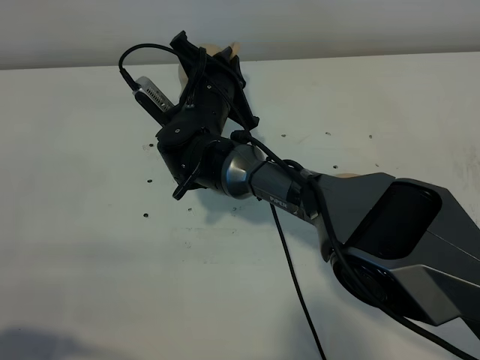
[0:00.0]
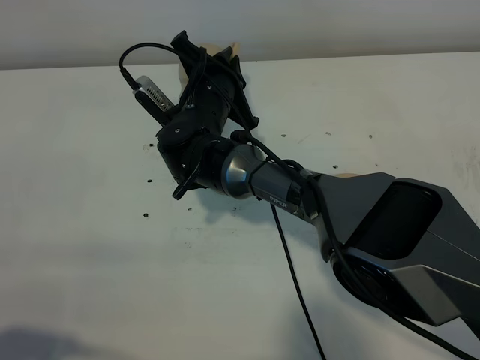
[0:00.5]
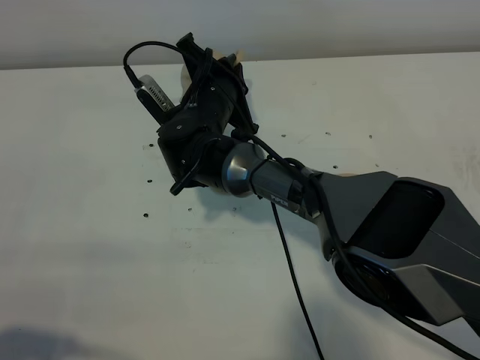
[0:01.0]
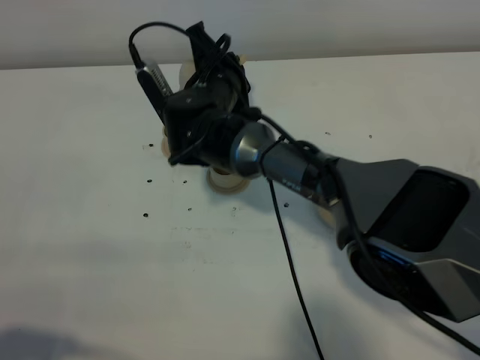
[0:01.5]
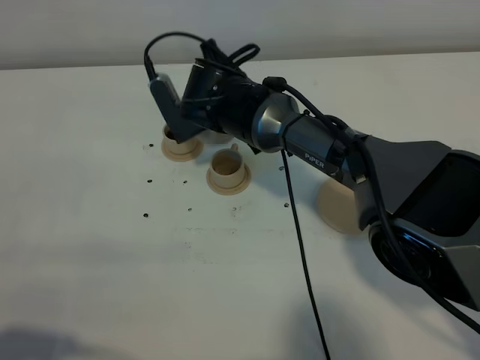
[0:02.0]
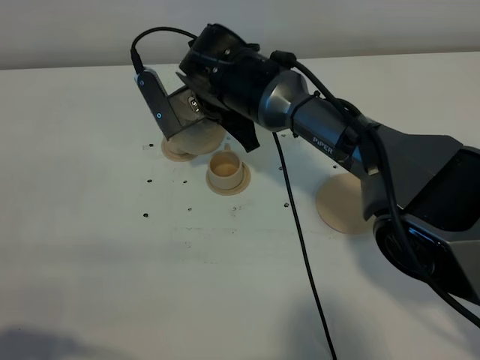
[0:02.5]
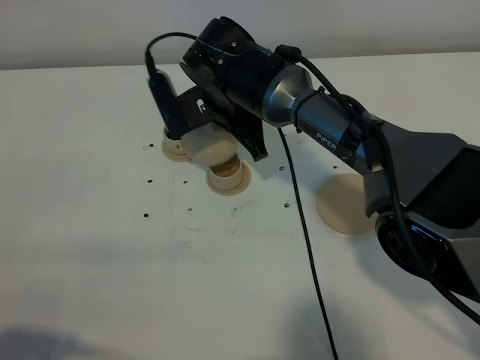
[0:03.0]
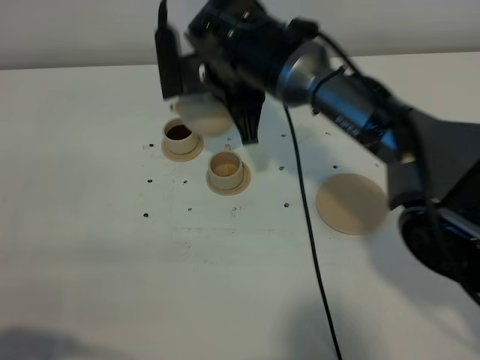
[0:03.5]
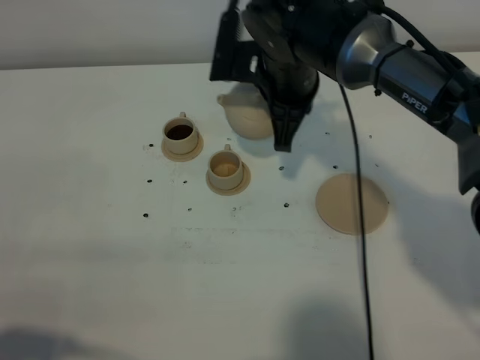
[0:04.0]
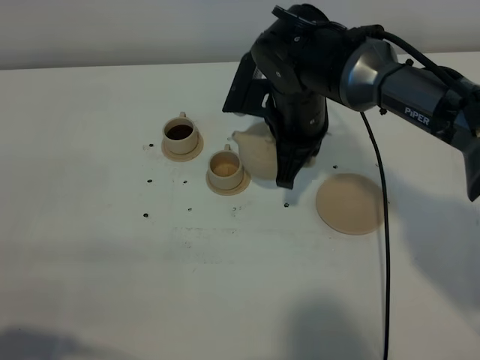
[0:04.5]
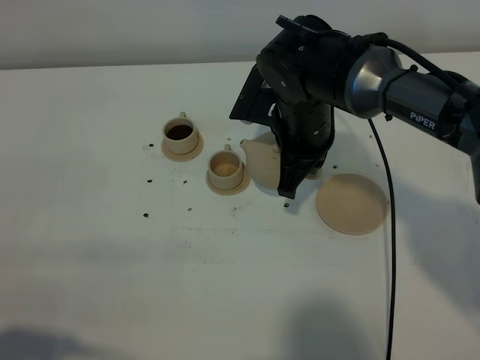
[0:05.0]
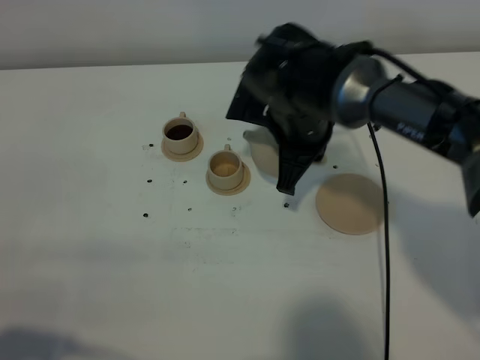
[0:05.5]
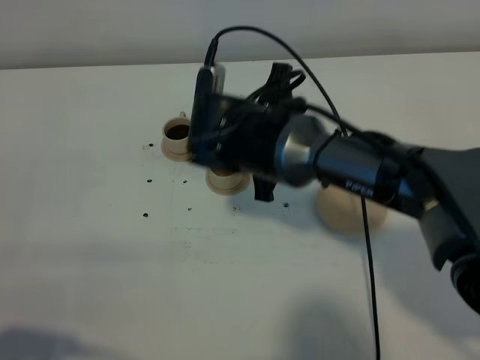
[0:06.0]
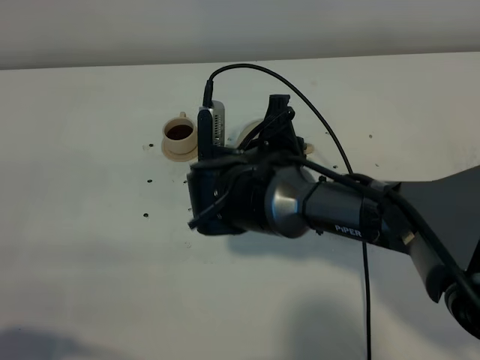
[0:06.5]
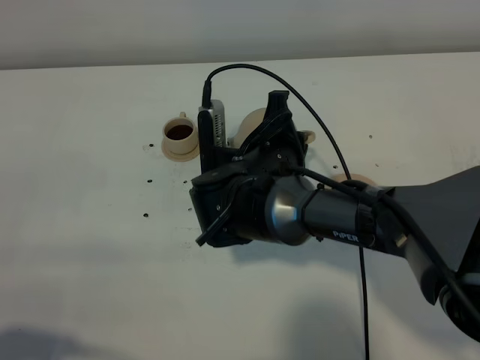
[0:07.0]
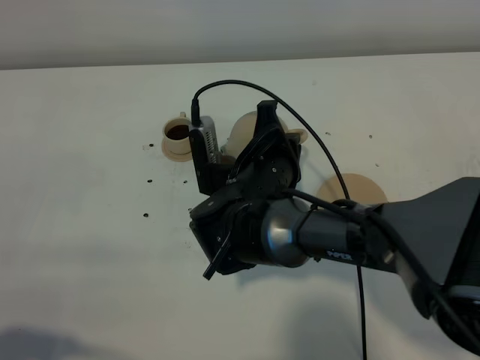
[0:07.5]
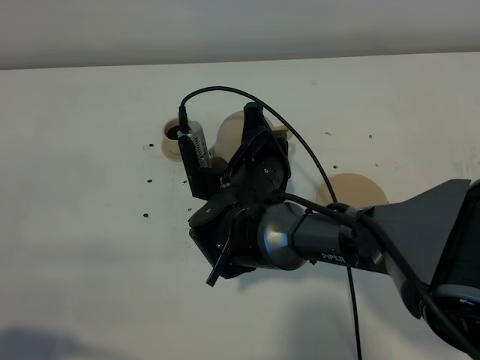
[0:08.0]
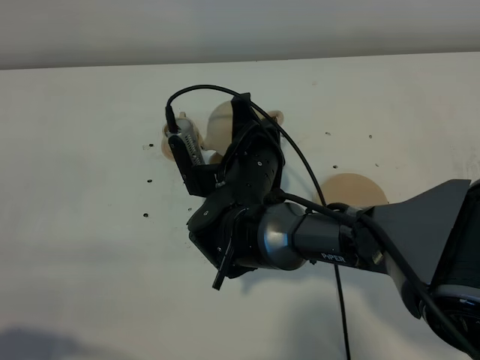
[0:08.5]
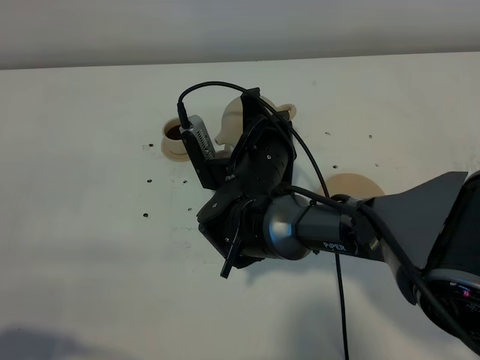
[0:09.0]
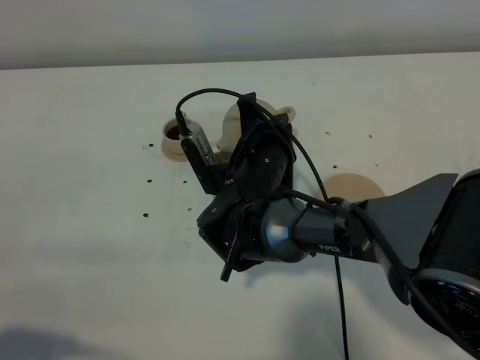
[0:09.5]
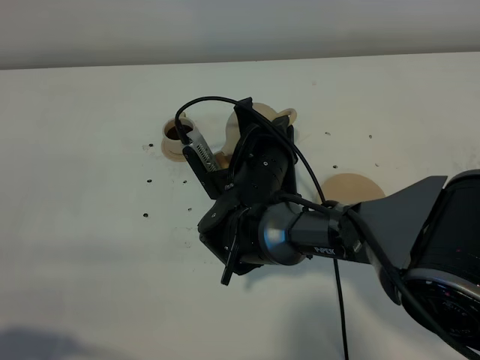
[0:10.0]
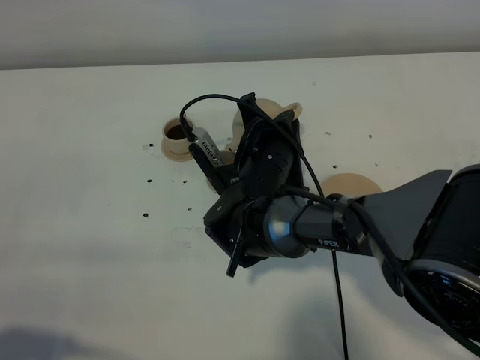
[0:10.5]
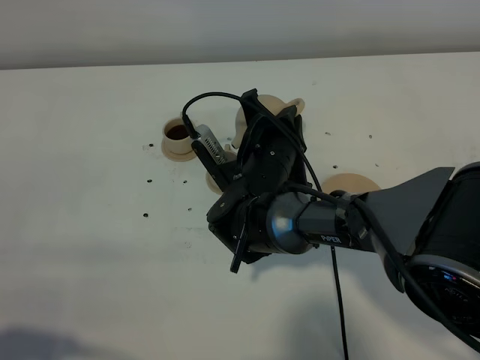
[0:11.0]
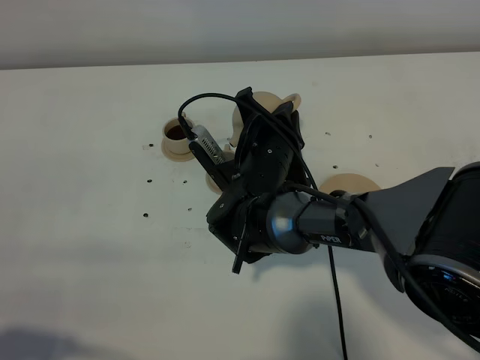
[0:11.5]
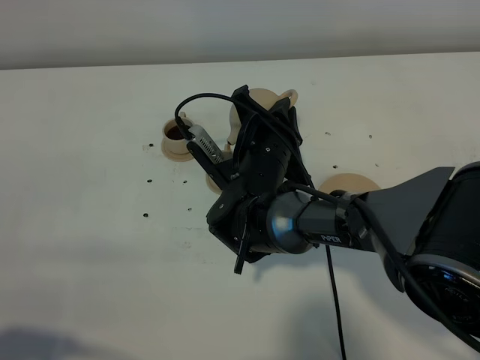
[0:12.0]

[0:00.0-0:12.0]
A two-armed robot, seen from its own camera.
Task of the whole recording: grasp the brown teapot and pour the tea into the two brown teacups one by one, put the brown teapot back in its original place.
2.0 to 4.0 s: The right gripper heads to the right and upward, covering approximately 10 cm.
4.0 to 6.0 s: The right gripper travels backward by approximately 5 cm.
6.0 to 8.0 s: The right gripper shifts about 5 cm downward.
8.0 to 10.0 s: The grippers stay close to where they were, moving slightly.
10.0 to 12.0 s: The grippers stay close to where they were, moving slightly.

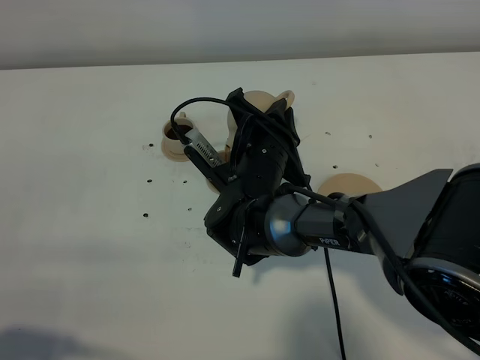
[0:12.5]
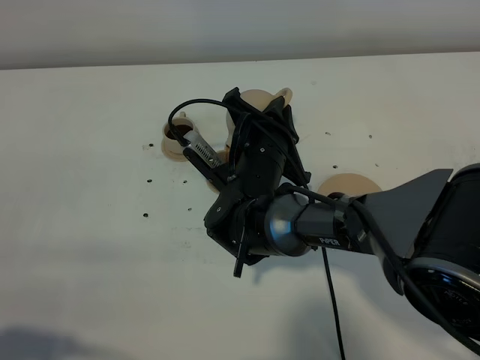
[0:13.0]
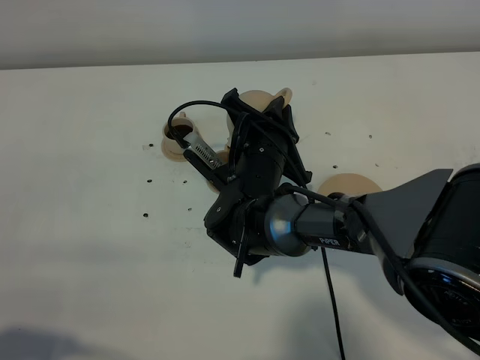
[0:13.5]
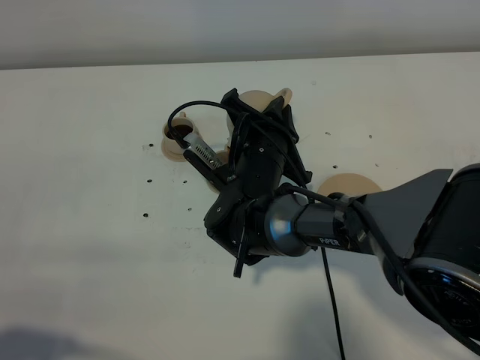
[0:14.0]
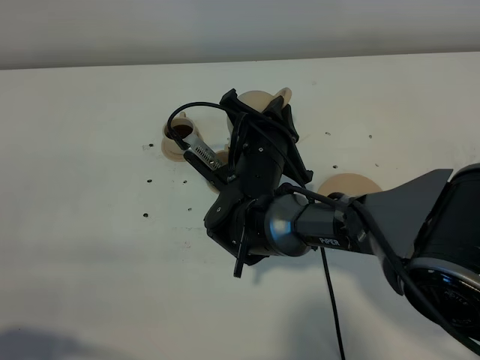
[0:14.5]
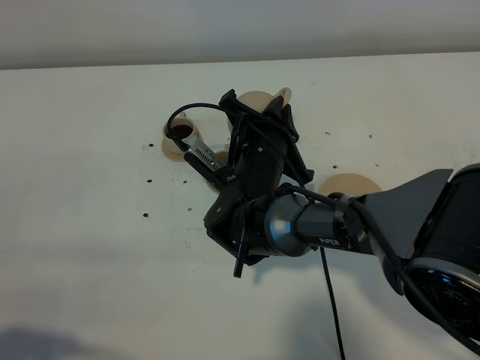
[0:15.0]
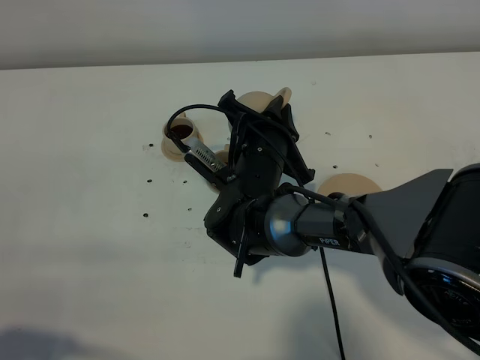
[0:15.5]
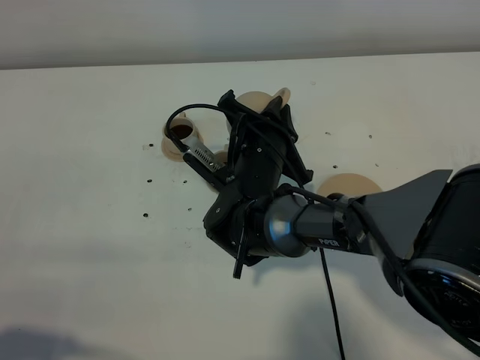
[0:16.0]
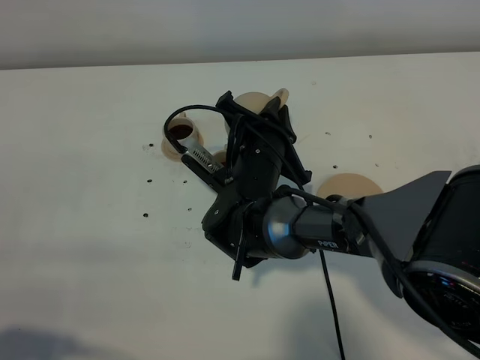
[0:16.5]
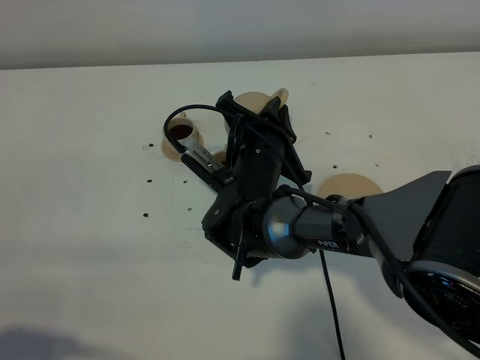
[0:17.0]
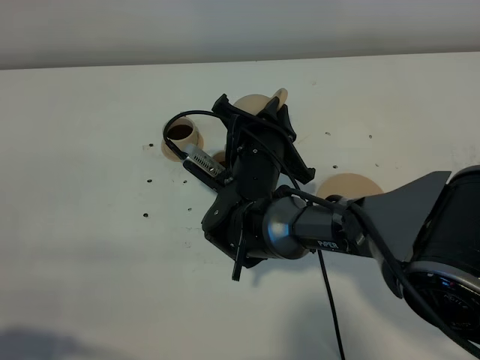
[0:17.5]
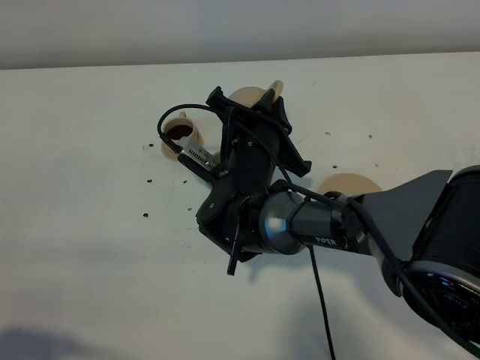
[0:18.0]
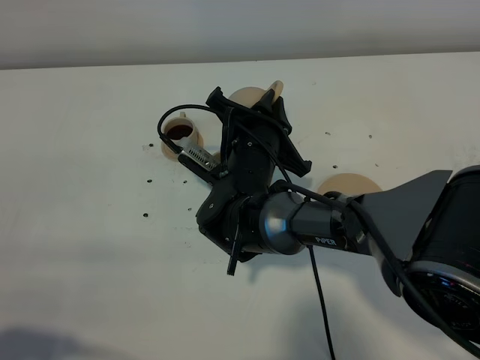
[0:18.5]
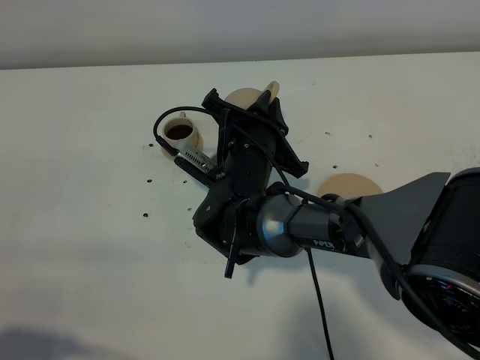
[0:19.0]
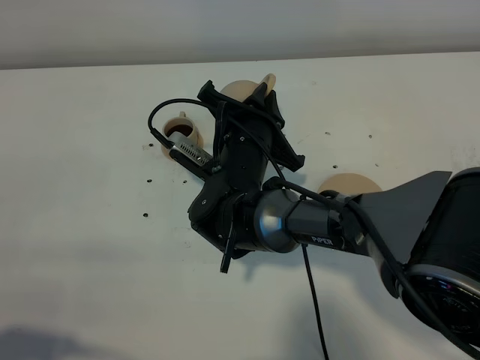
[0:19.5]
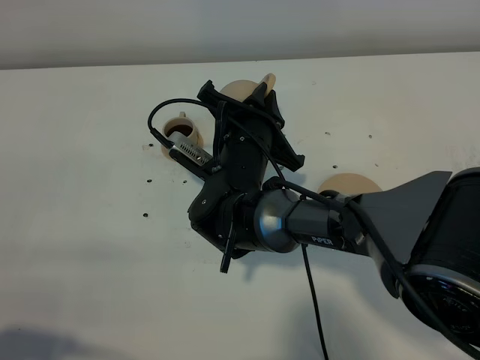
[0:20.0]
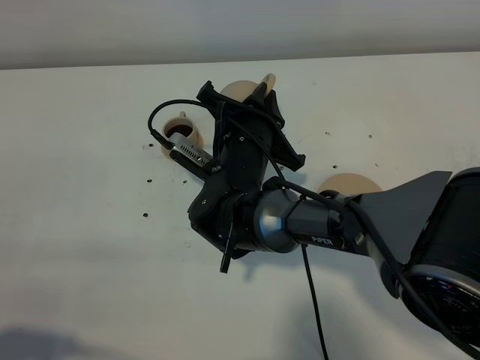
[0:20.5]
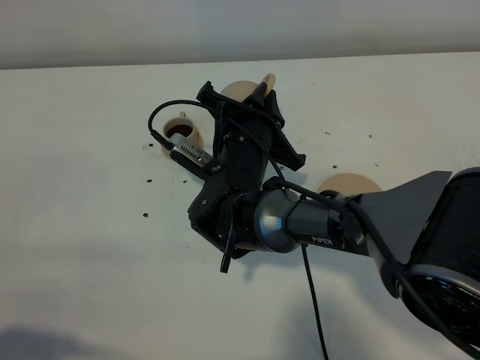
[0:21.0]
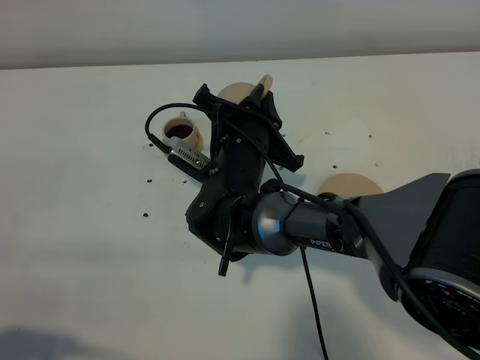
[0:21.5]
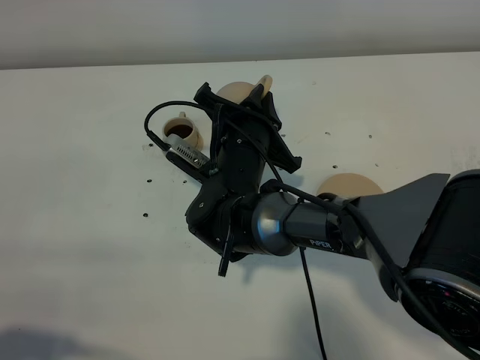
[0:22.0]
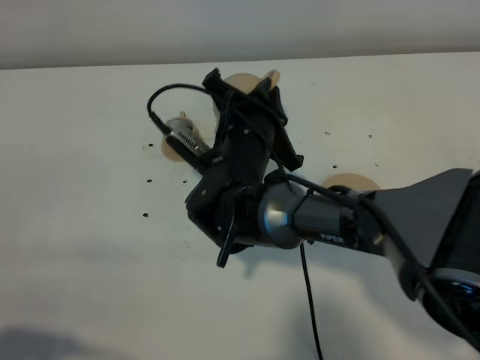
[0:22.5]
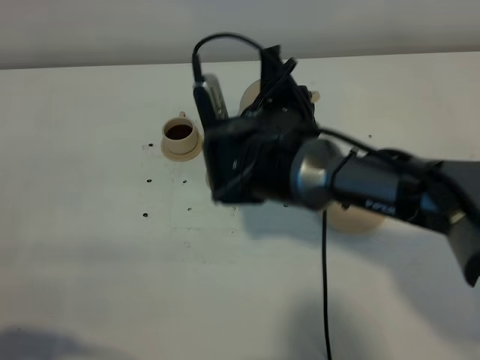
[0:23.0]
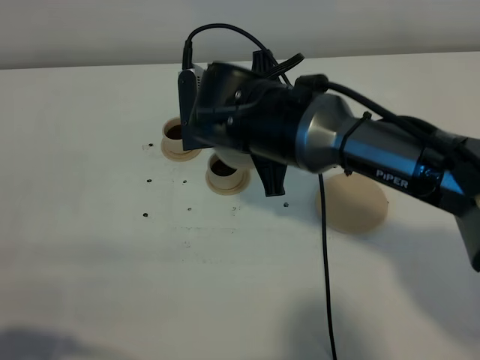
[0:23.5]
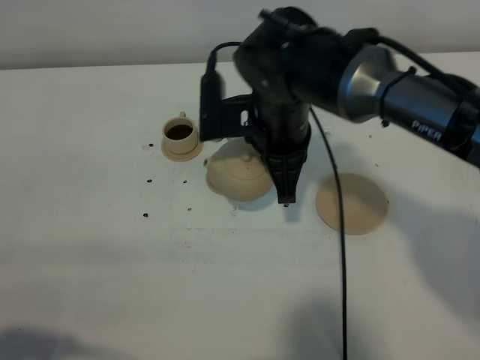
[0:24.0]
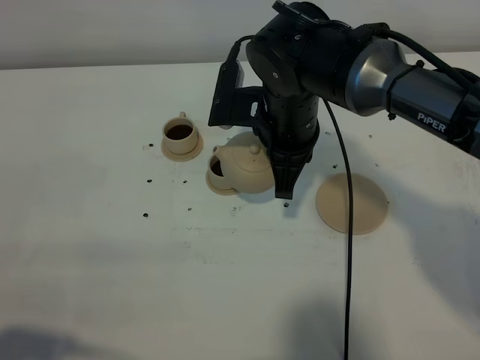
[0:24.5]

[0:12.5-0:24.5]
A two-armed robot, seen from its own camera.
Task of the whole recording: grasp the brown teapot and pour the tea into the two brown teacups one by one, put the brown teapot back in its original place.
12.5 to 14.5 s: There are only small adjustments of the grippers.
14.5 to 16.5 s: Neither gripper changes place.
16.5 to 18.5 s: There are only small adjustments of the grippers.
18.5 to 20.5 s: Neither gripper changes place.
20.5 to 22.5 s: The grippers make only small movements.
22.5 to 24.5 s: The right gripper goes roughly 5 cm upward.

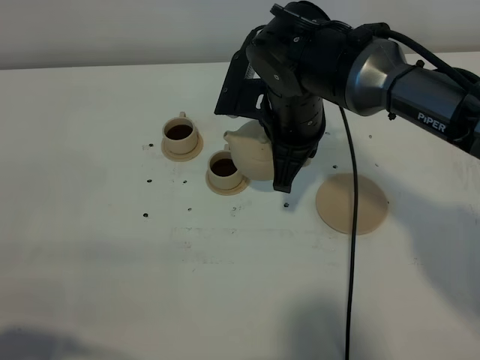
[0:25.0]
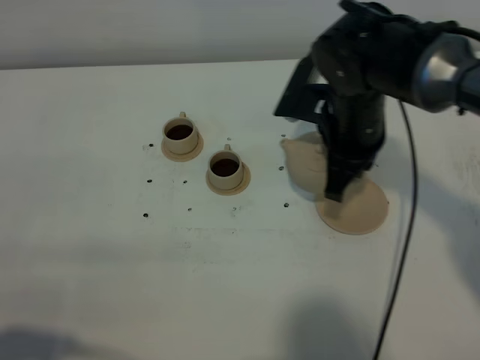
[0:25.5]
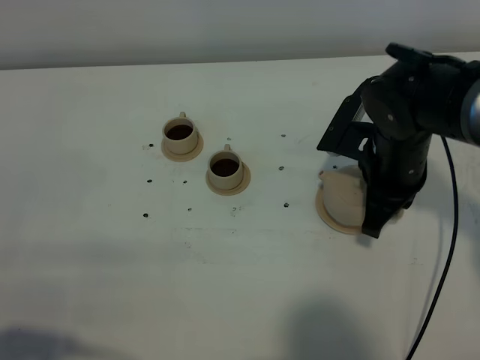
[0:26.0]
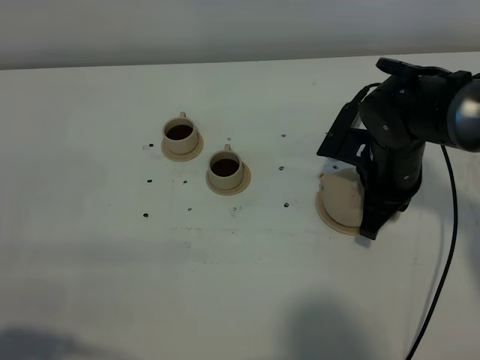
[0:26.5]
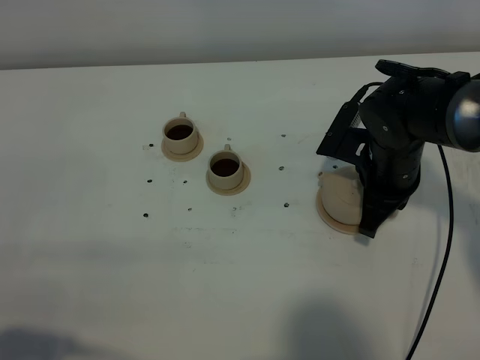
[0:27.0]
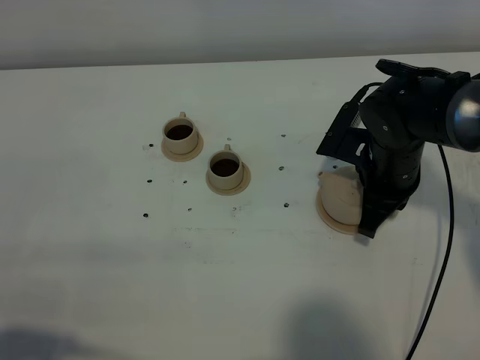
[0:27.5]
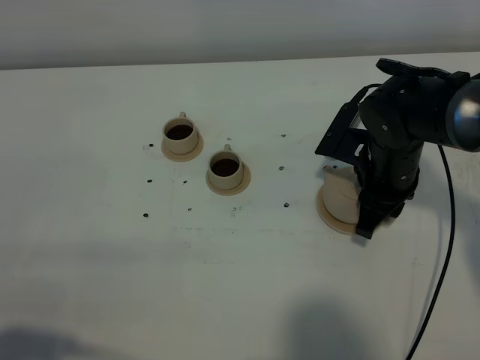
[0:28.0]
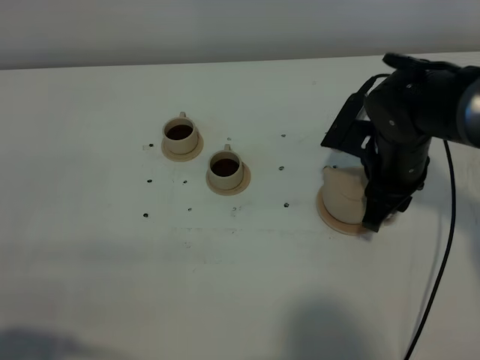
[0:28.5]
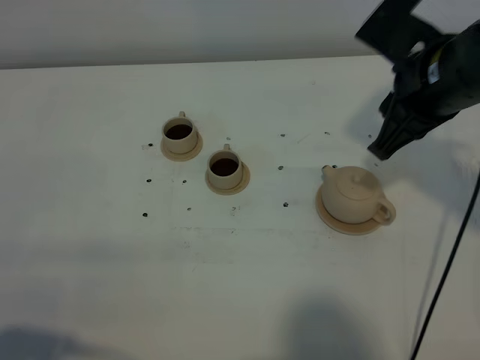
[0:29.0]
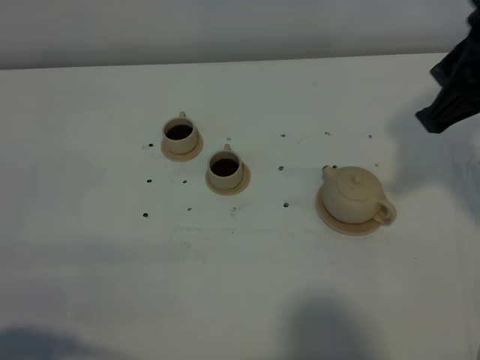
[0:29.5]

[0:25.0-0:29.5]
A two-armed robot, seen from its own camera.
Task of the whole recording: grasp the brown teapot and pour the tea into the two brown teacups one by one, put the brown teapot back in its original place.
25.0 to 27.0 s: The right gripper is displaced to the right and downward by about 15 cm.
27.0 to 29.5 s: The right gripper is displaced upward and backward by some 25 cm, and opens its fingers.
